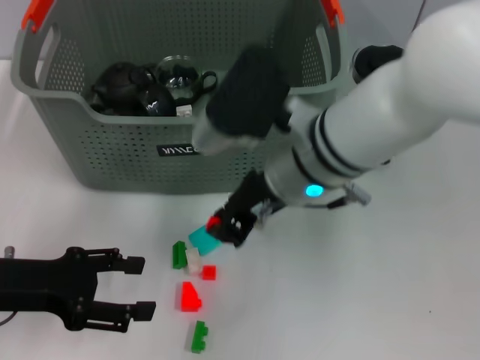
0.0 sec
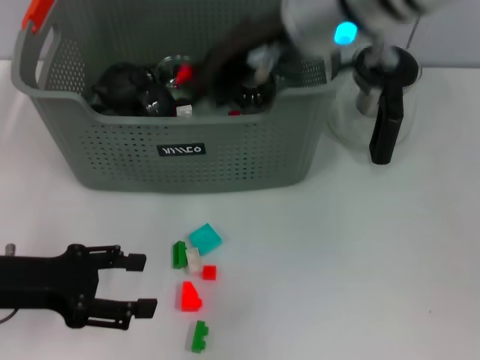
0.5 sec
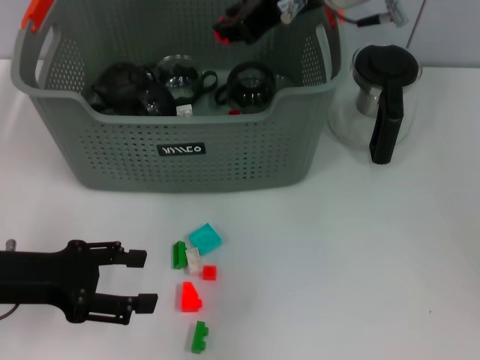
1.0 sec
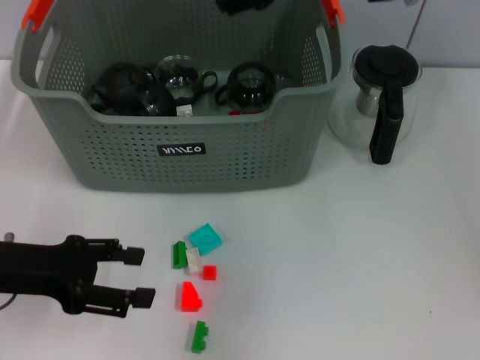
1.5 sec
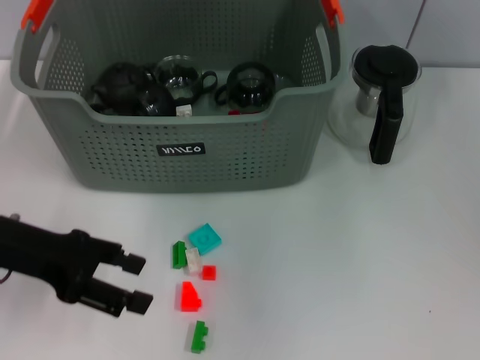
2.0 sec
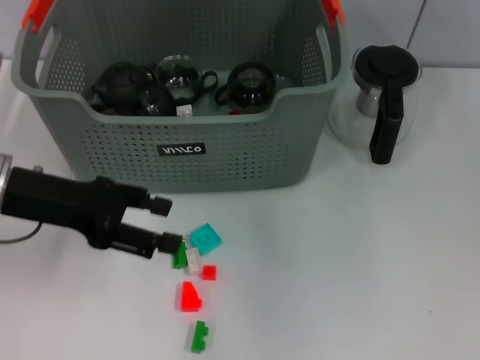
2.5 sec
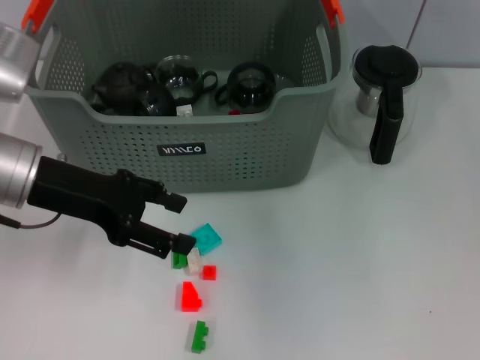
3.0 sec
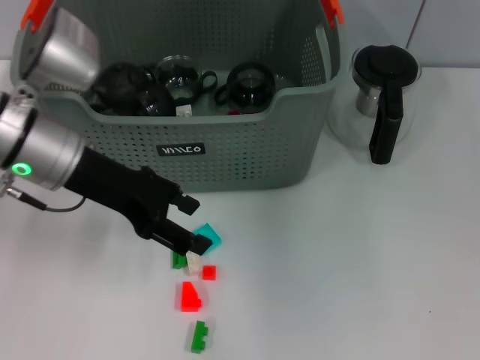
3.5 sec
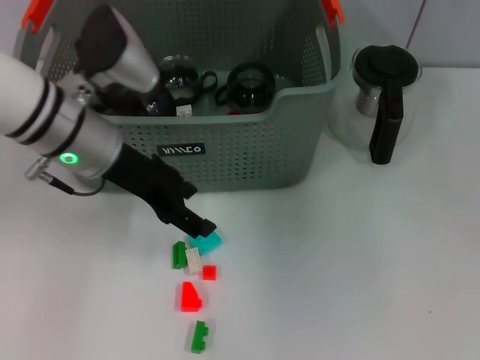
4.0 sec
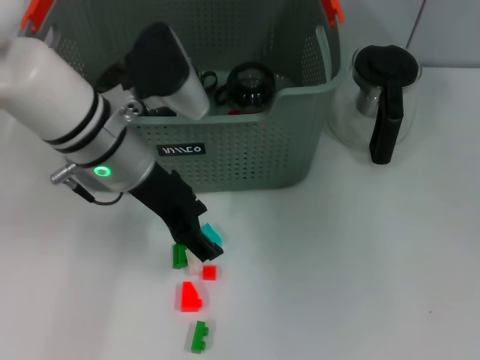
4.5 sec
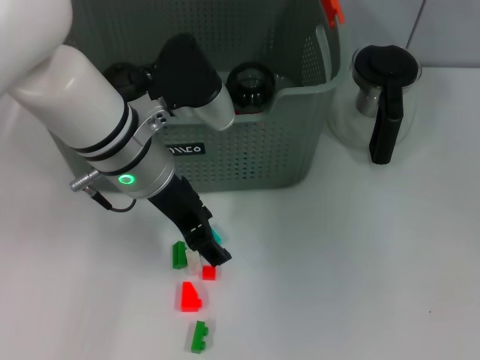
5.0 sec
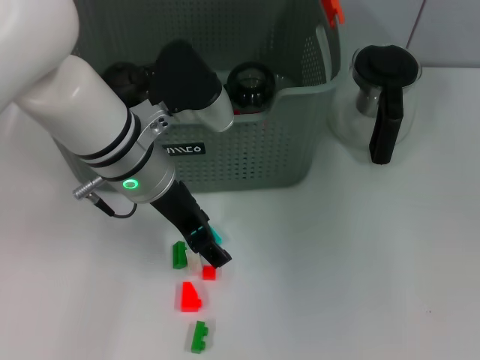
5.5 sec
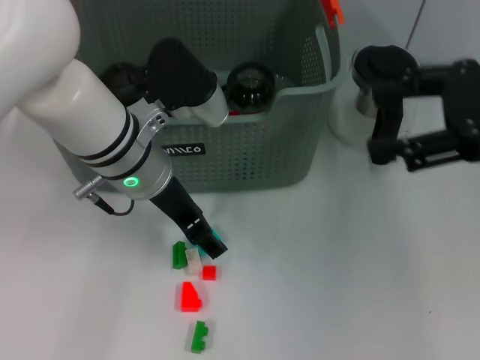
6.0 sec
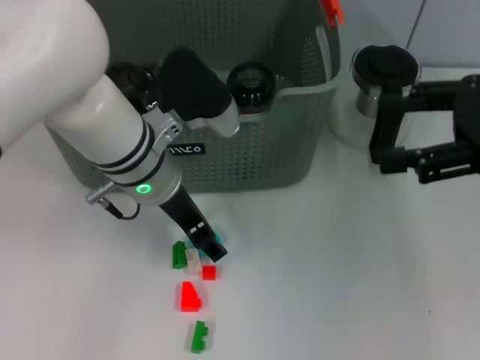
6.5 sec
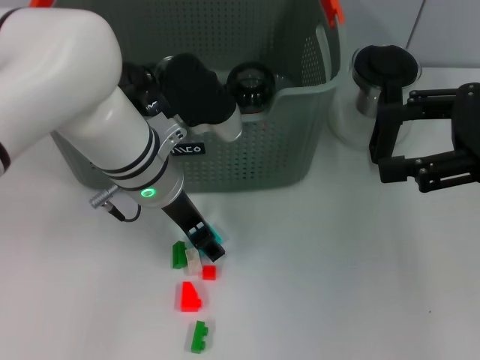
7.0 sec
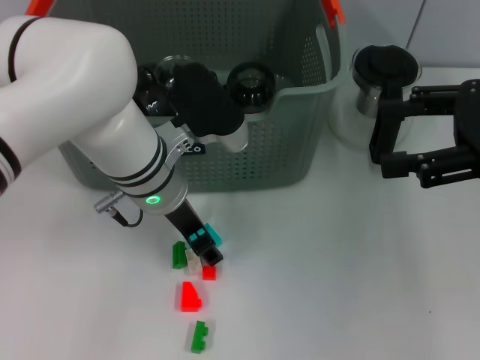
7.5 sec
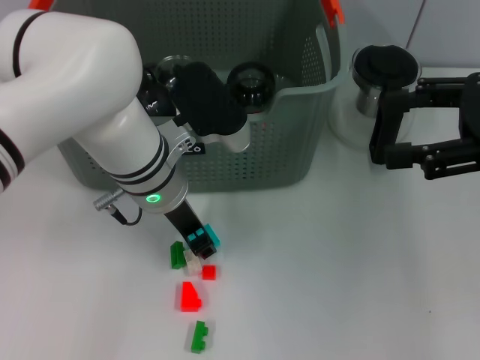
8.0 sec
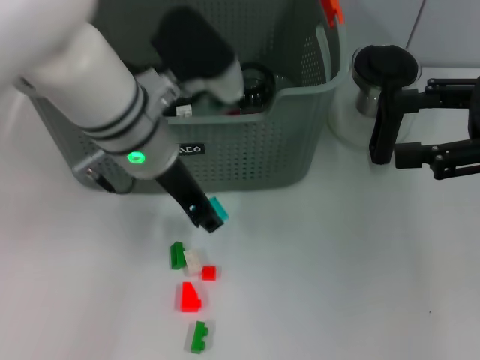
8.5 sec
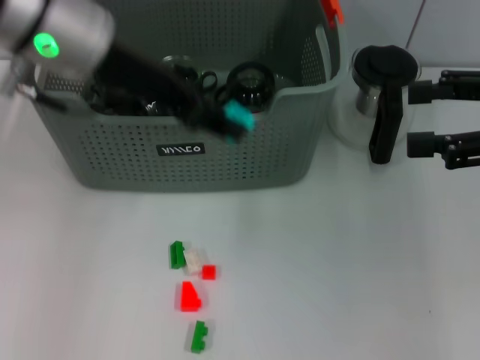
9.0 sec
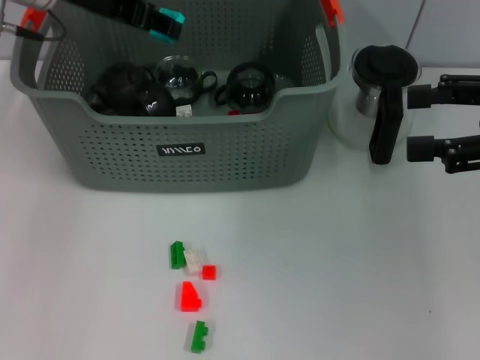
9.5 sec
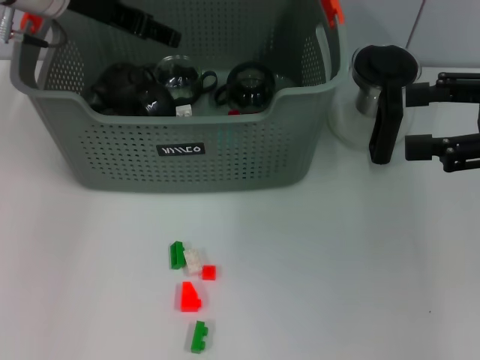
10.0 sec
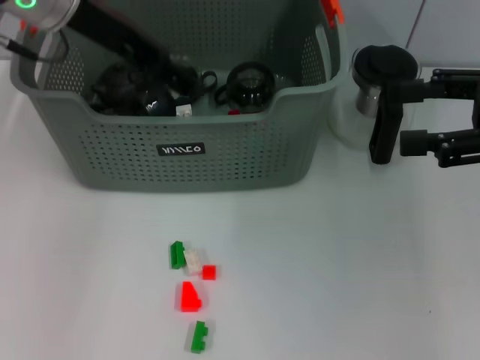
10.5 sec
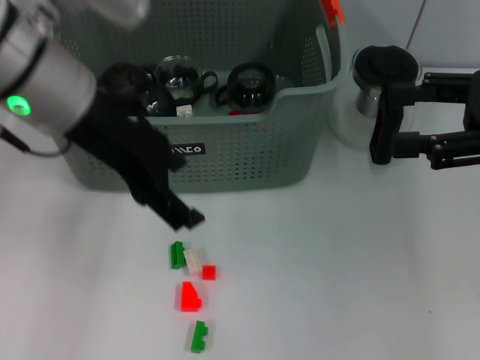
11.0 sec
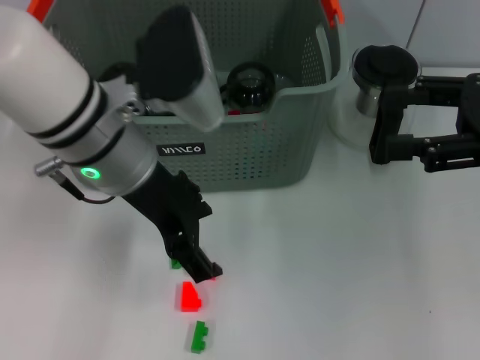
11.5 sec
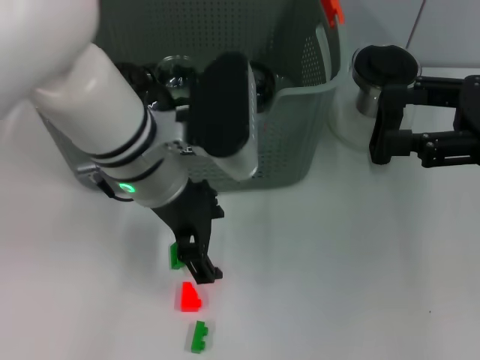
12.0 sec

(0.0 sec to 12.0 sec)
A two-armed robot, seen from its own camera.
Task of the whole recording: pick up the teacup on the table and place it into the storage bin, pick up the block on the table and place it into the storage bin.
Step, 0.0 sec - 1.5 sec: Place the orange block in the storage box with right gripper.
Step, 2.0 sec - 7.5 sec: Grasp the light blue block with left gripper.
Step, 8.0 sec - 10.0 sec: Place the light blue block in the storage box with left gripper.
0.0 sec - 2.0 sec: The right gripper moves upward, forward and to the right, approximately 15 cm, and opens; the left gripper ends up approximately 5 cm from where it was.
2.0 sec - 4.0 sec: The right gripper goes approximately 5 cm to the right. Meanwhile the left gripper moves to the right and forward, about 15 cm.
4.0 sec - 6.0 sec: The right gripper heads backward and to the right, covering about 15 cm; the left gripper shifts some 5 cm to the right.
6.0 sec - 8.0 sec: The left gripper closes up.
8.0 sec - 10.0 sec: The left gripper is displaced upward, to the left and forward by approximately 20 cm.
10.0 sec - 12.0 sec: The left gripper moves to the right, backward and downward, approximately 15 cm.

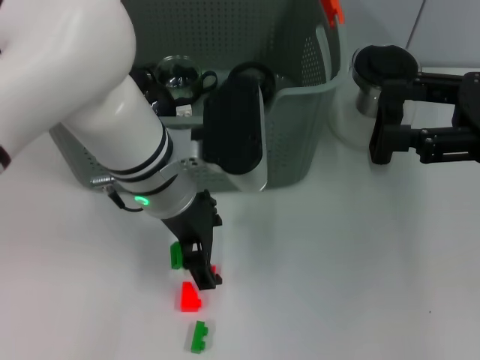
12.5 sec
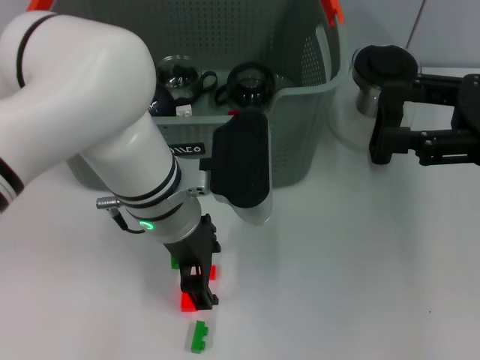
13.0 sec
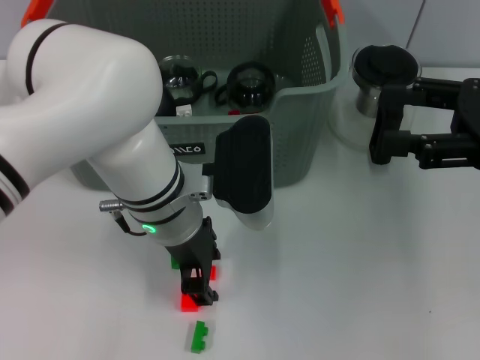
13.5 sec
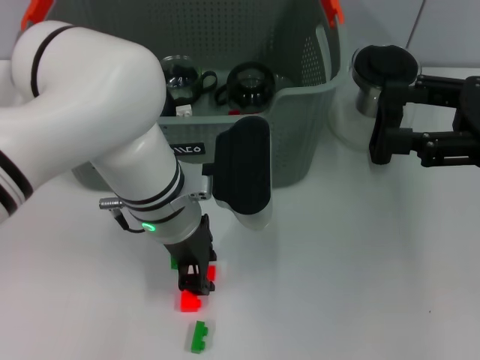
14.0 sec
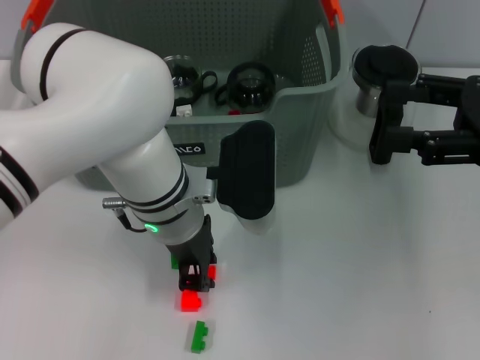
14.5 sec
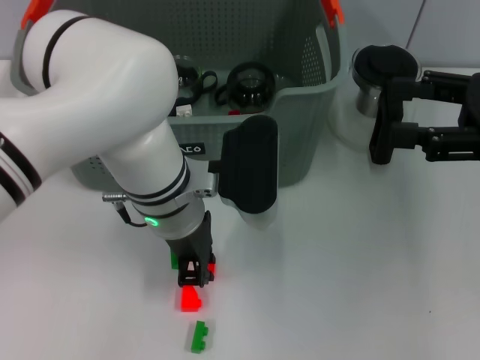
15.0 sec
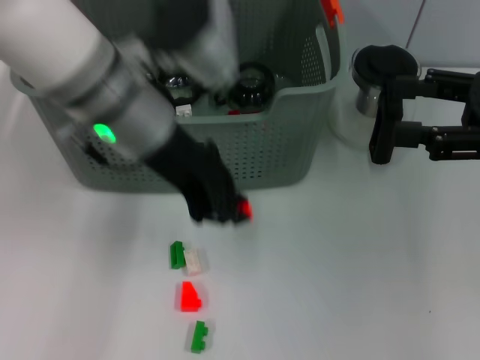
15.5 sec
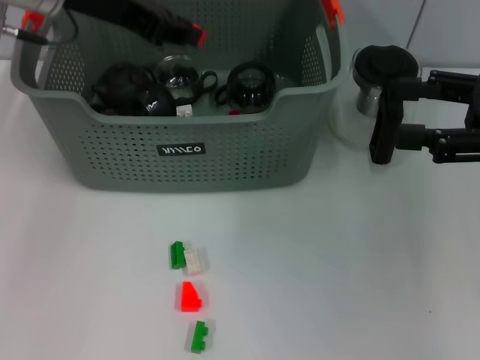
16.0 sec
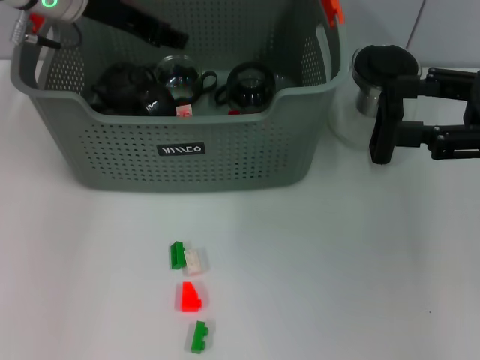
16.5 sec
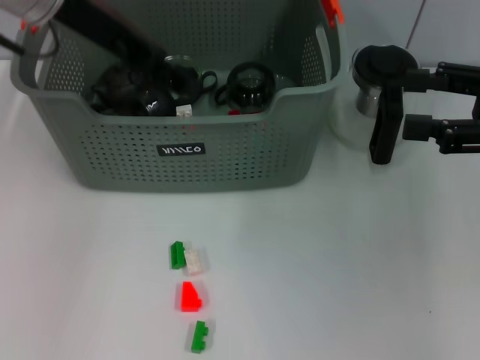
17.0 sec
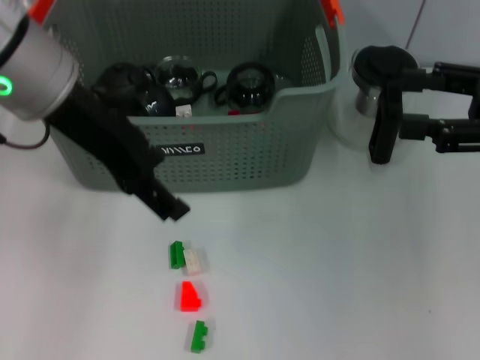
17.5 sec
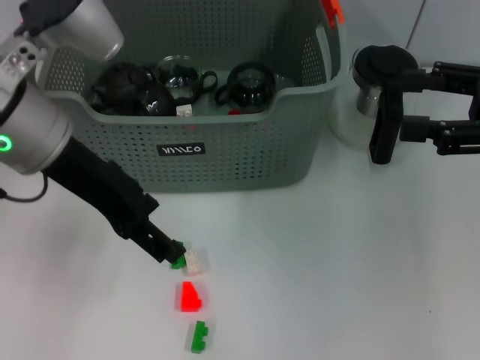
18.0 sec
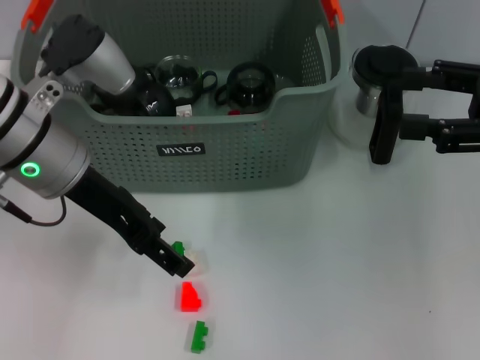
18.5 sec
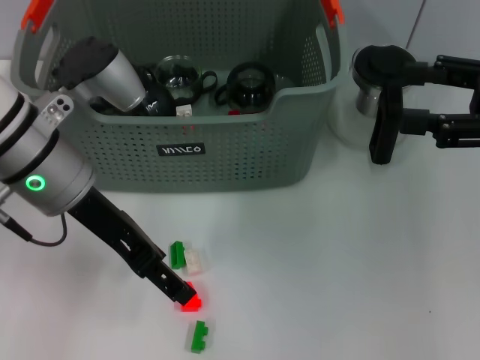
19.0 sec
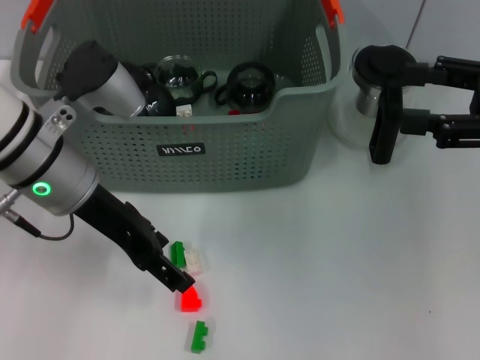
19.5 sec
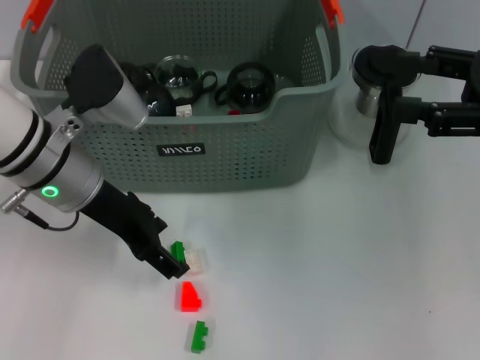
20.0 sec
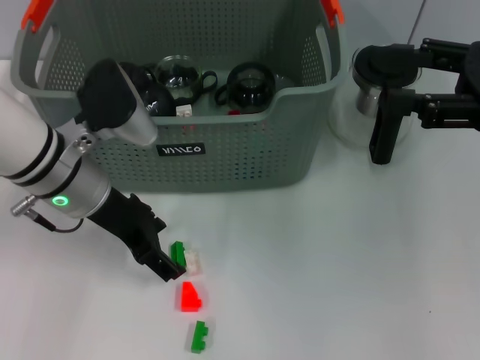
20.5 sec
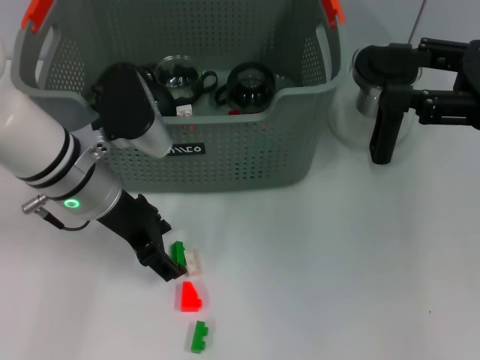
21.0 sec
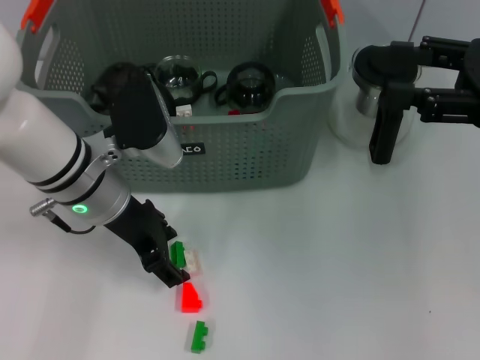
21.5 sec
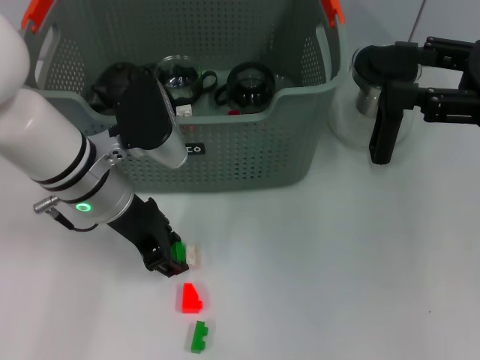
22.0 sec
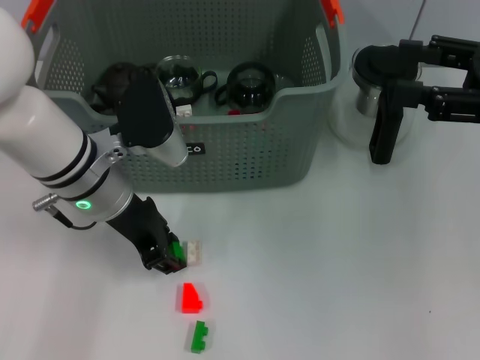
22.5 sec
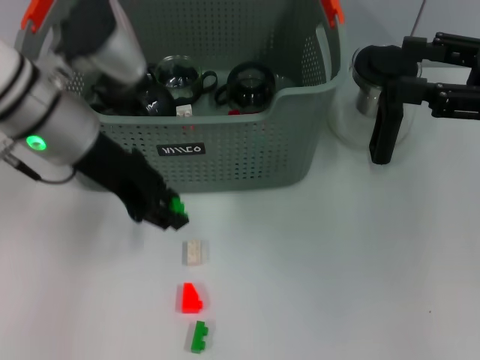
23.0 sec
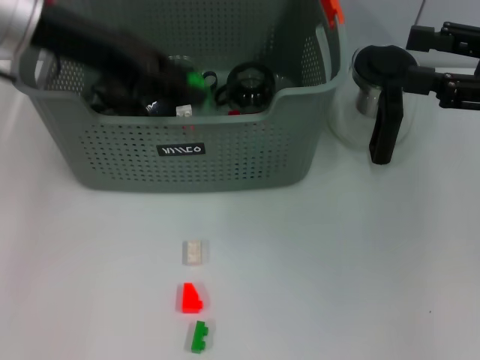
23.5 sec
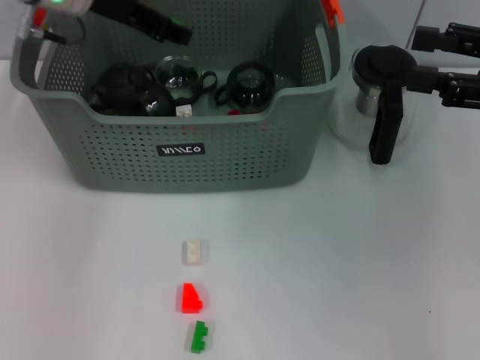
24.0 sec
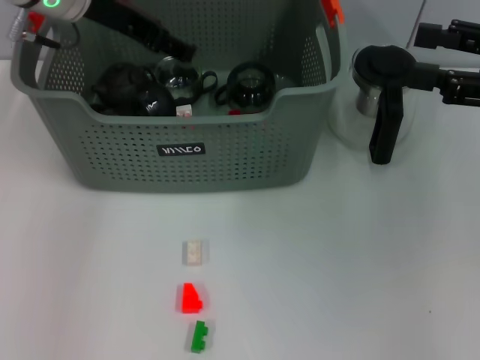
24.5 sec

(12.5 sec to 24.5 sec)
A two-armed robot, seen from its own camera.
Task of the whole recording: pick up the teacup on the table and place it into the storage bin, pick up the block on the table and place it into the storage bin.
Step, 12.5 sec - 14.5 sec: Grasp the orange block with left gripper.
Step, 15.0 sec - 16.5 sec: Place the orange block in the storage box with left gripper.
Step, 17.0 sec - 22.0 sec: Grasp the green block with left gripper.
Step, 22.5 sec - 24.0 sec: Place the green block in the storage box with left gripper.
12.5 sec - 14.5 sec: The left gripper closes its fingers.
14.5 sec - 16.5 sec: The left gripper is displaced to the left, forward and upward by about 20 cm.
16.5 sec - 18.5 sec: The left gripper shifts about 15 cm backward and downward, and opens.
18.5 sec - 20.5 sec: The left gripper is displaced downward by some 5 cm.
20.5 sec - 22.5 sec: The left gripper closes up.
22.5 sec - 24.5 sec: The left gripper goes roughly 15 cm upward and forward.

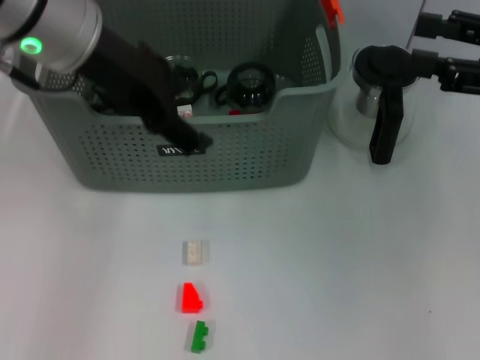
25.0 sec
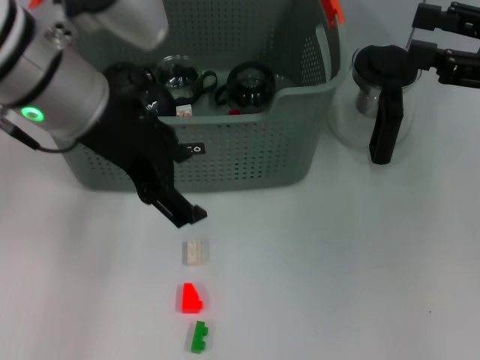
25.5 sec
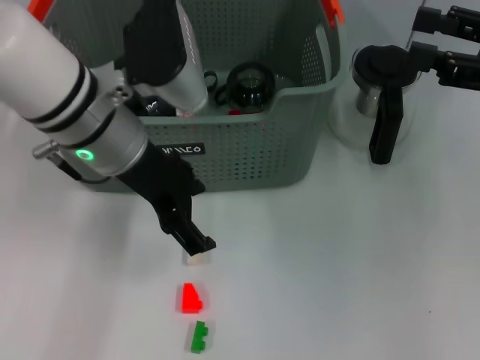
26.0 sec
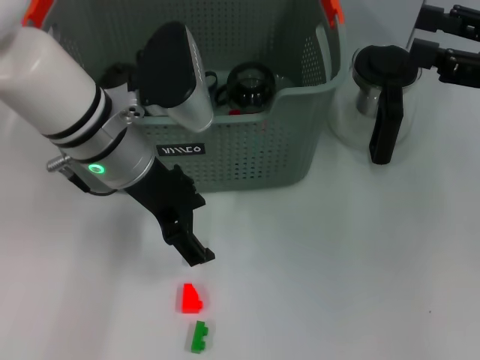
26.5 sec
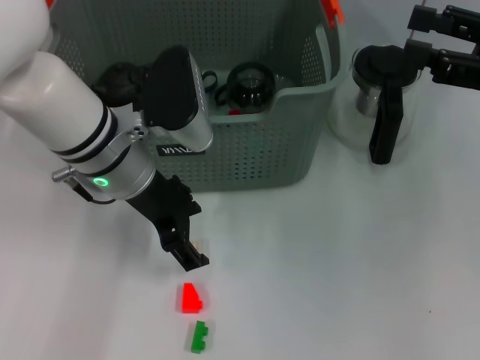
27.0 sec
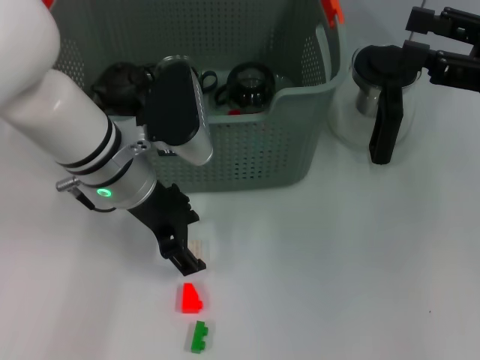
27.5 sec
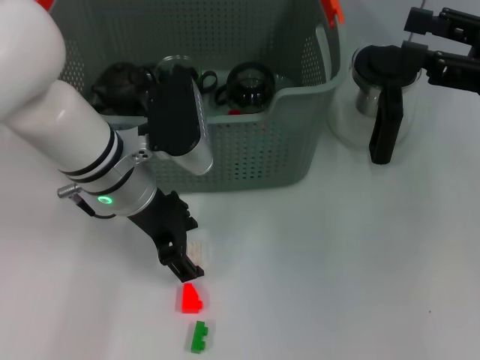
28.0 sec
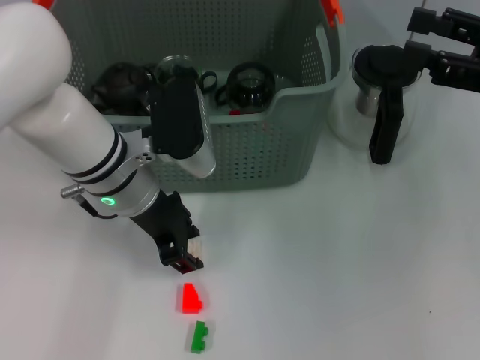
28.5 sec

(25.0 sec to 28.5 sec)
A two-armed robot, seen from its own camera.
Task of the whole recording: pick up the teacup on the table and place it into the storage bin, pick up the block on the table and place it into the storage bin.
25.0 sec - 27.0 sec: The left gripper goes about 15 cm downward.
27.0 sec - 28.5 sec: The grippers move only a little.
